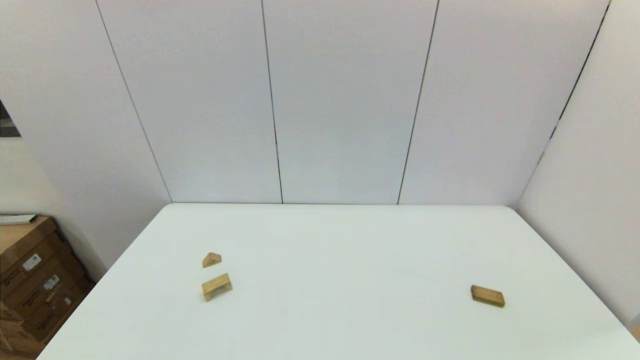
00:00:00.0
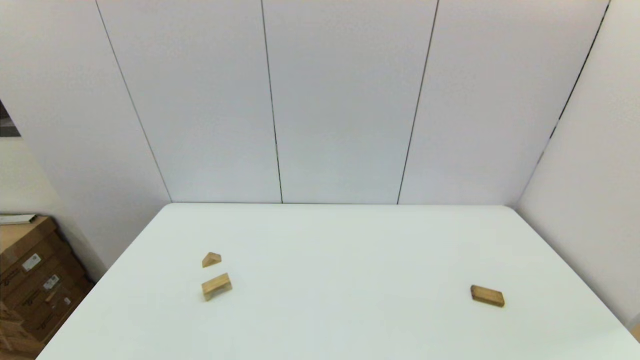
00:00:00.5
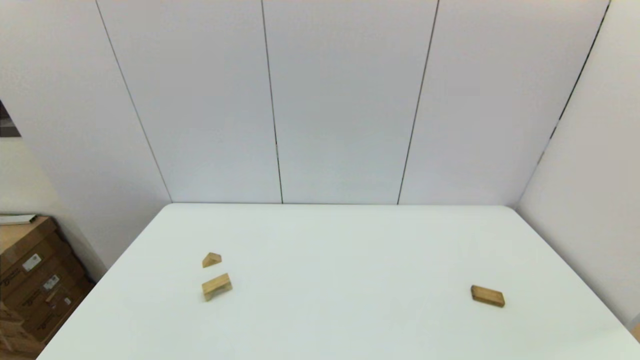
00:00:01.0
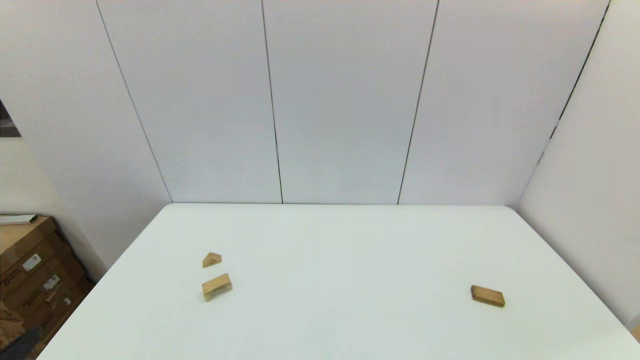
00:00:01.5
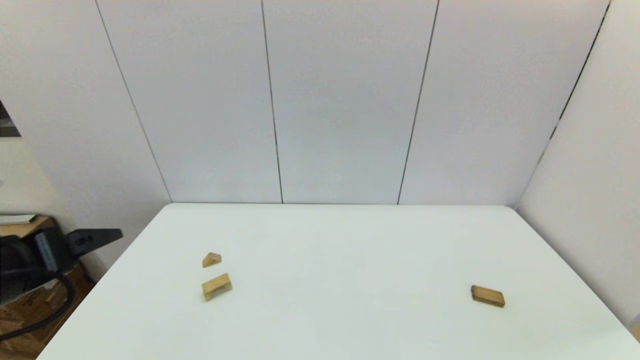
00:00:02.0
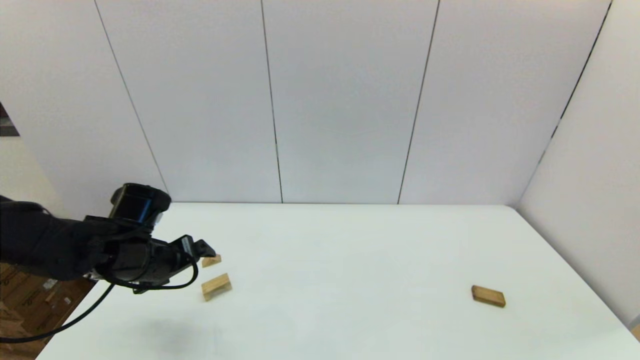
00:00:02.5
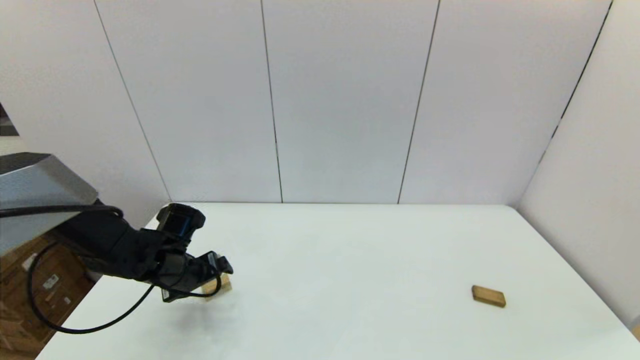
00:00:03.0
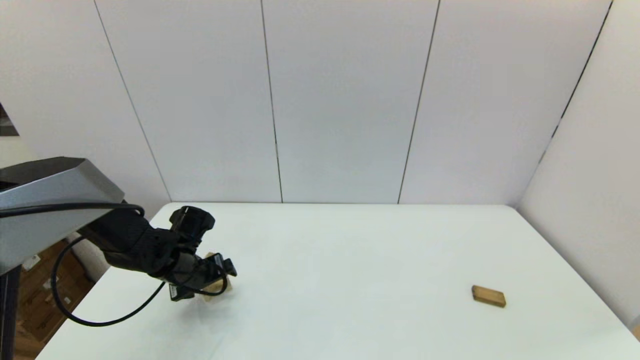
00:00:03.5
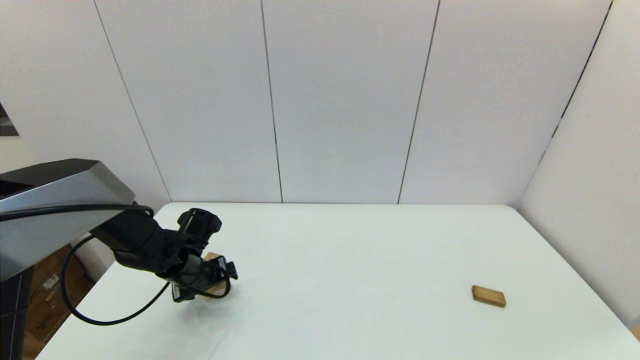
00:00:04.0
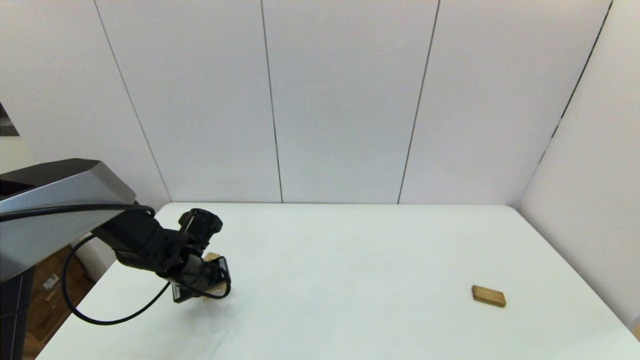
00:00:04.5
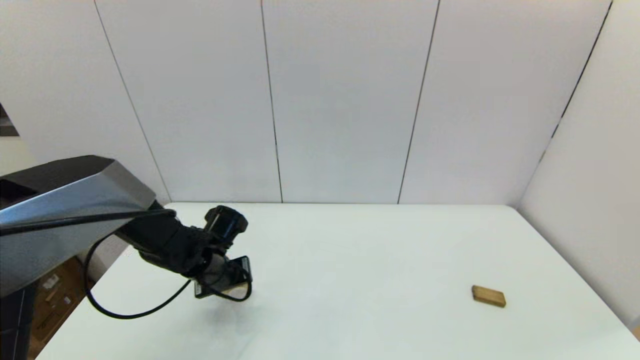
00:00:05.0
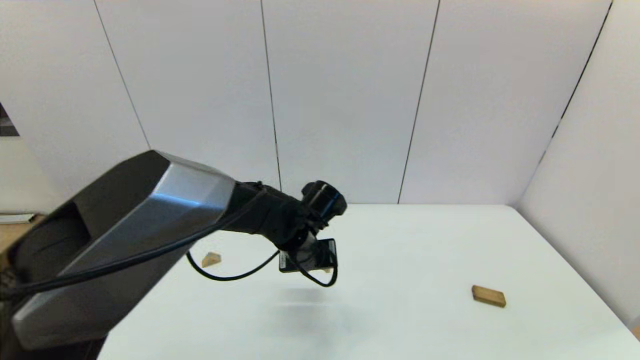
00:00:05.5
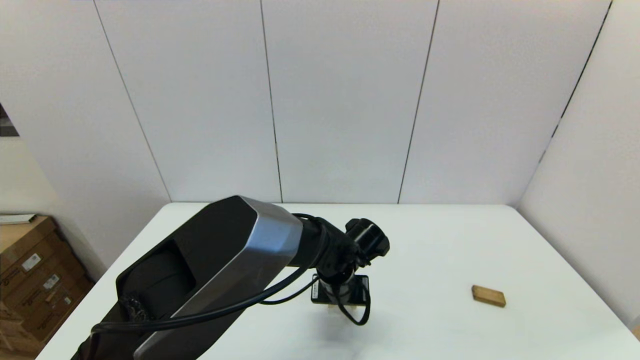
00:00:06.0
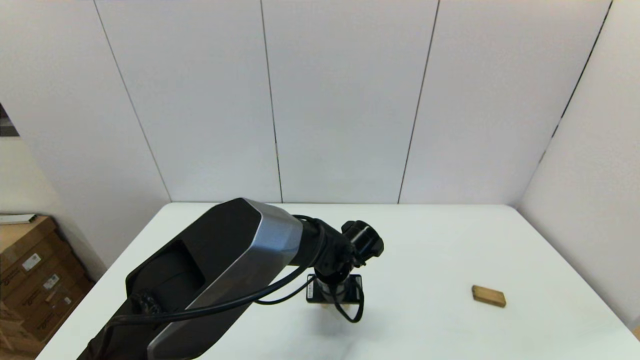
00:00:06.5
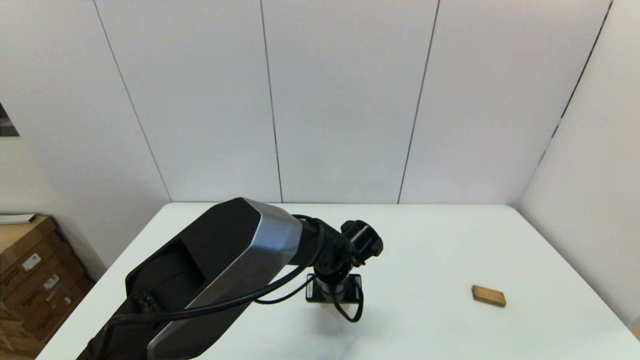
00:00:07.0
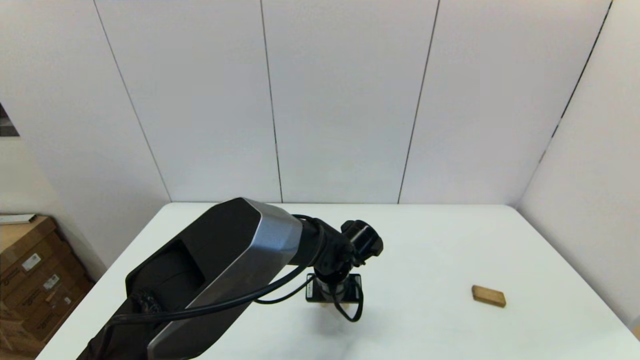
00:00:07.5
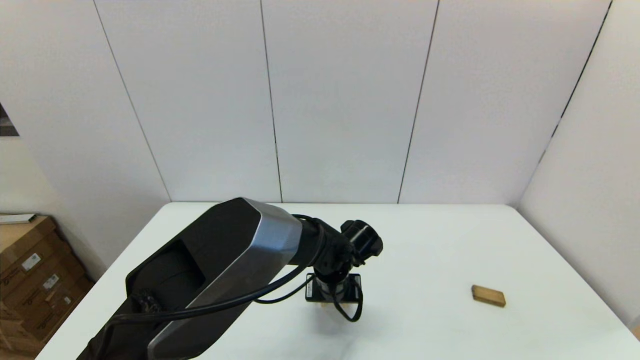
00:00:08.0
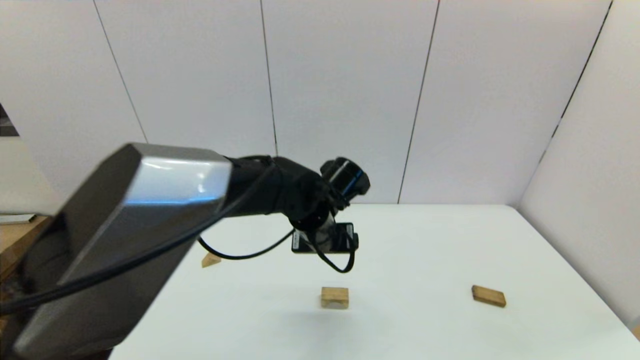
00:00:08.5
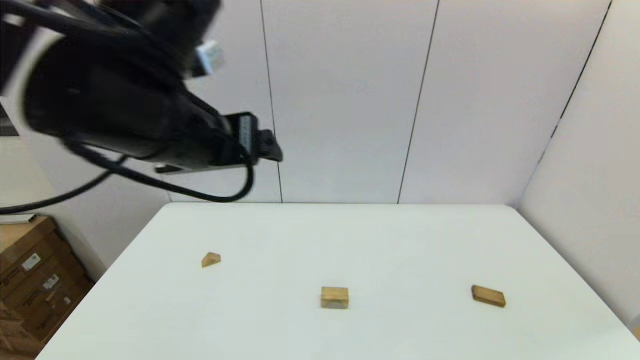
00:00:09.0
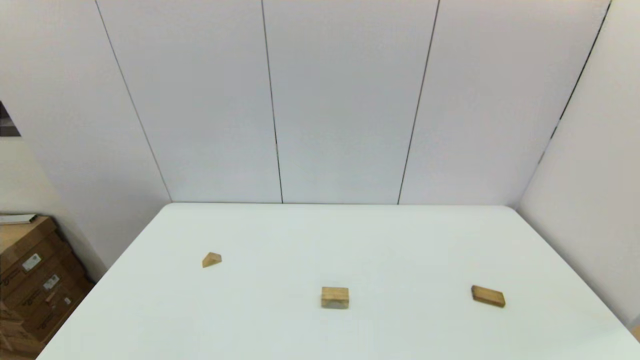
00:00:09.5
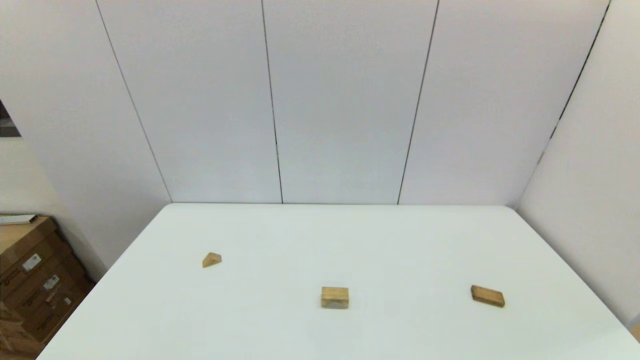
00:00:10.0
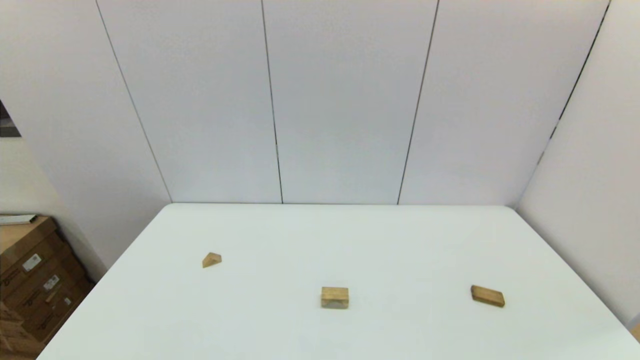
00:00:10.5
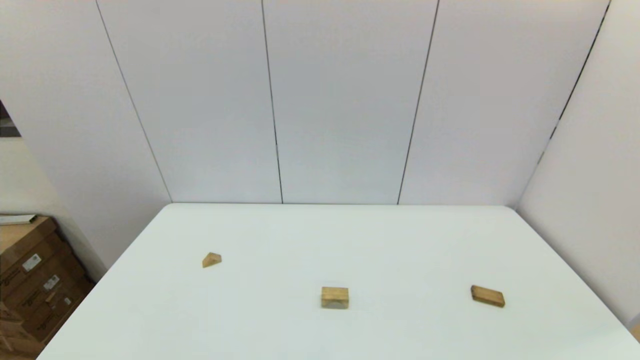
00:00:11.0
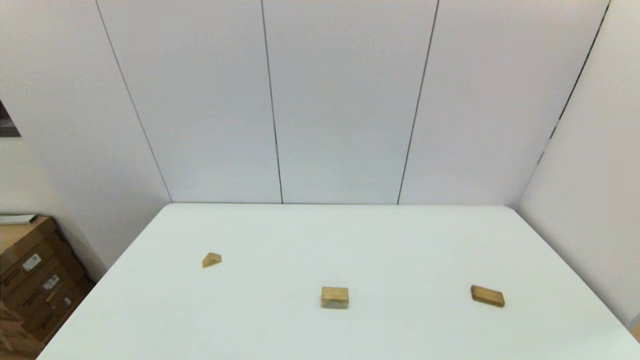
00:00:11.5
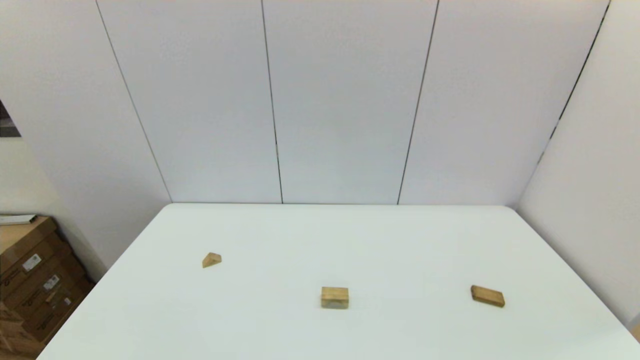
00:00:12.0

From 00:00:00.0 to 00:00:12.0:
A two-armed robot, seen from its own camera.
Task of the whole recording: place the arched building blocks in the center of the table, set up the rectangular building blocks, and then set up the triangular building blocks.
Step, from 00:00:01.5 to 00:00:04.0: Grasp the arch-shaped block with the left gripper.
Step, from 00:00:04.5 to 00:00:07.5: Place the arch-shaped block in the center of view with the left gripper.
From 00:00:00.0 to 00:00:02.0: The left gripper heads forward and upward, covering some 20 cm.
From 00:00:02.0 to 00:00:04.0: The left gripper goes some 25 cm downward and forward.
From 00:00:04.0 to 00:00:06.0: The left gripper is displaced to the right by roughly 25 cm, and closes up.
From 00:00:06.0 to 00:00:08.0: Both grippers stay put.
From 00:00:08.0 to 00:00:10.0: The left gripper is displaced backward, to the left and upward by about 60 cm.

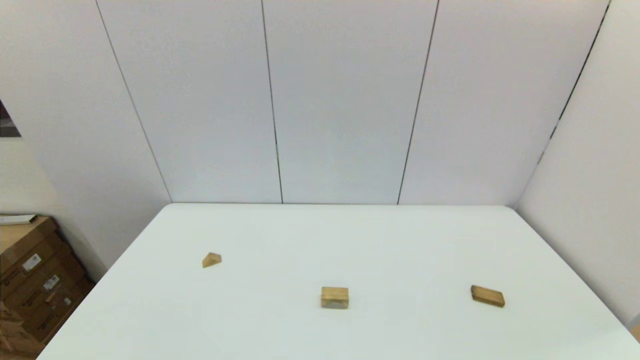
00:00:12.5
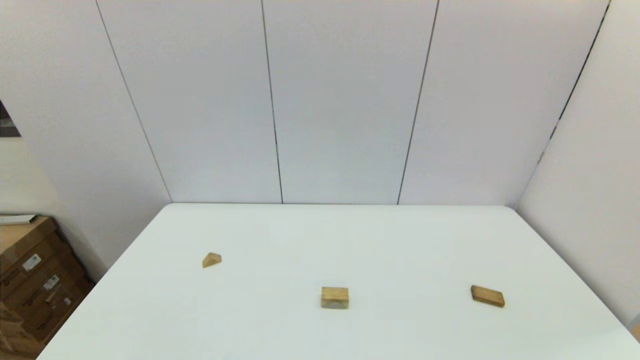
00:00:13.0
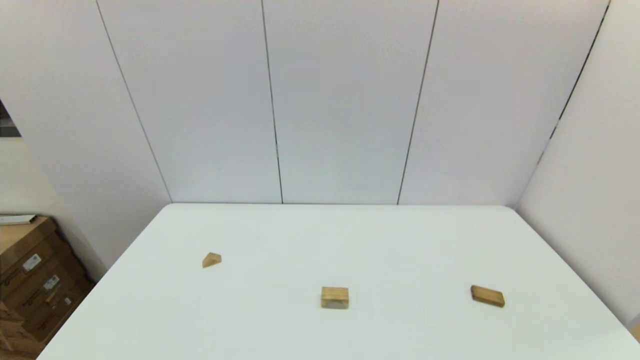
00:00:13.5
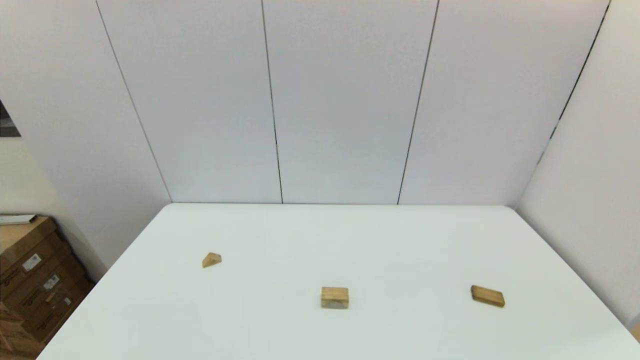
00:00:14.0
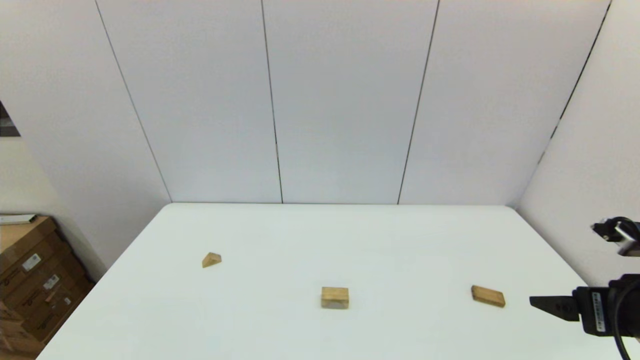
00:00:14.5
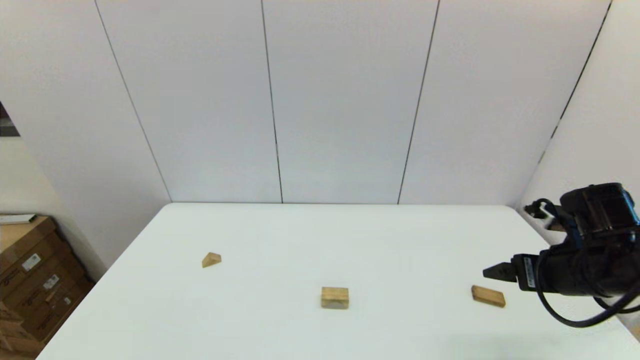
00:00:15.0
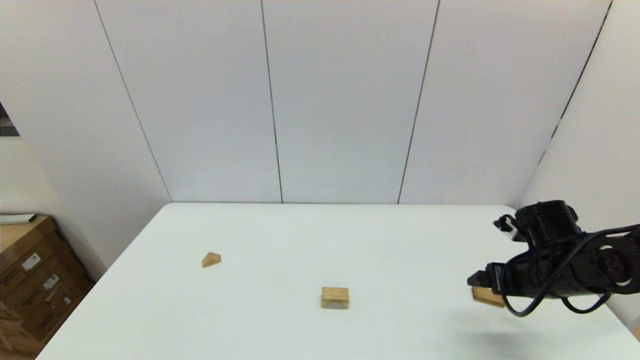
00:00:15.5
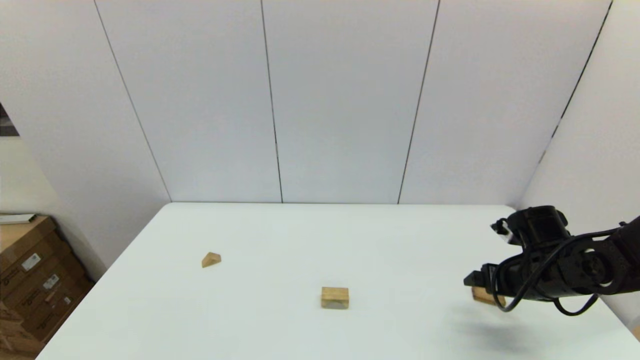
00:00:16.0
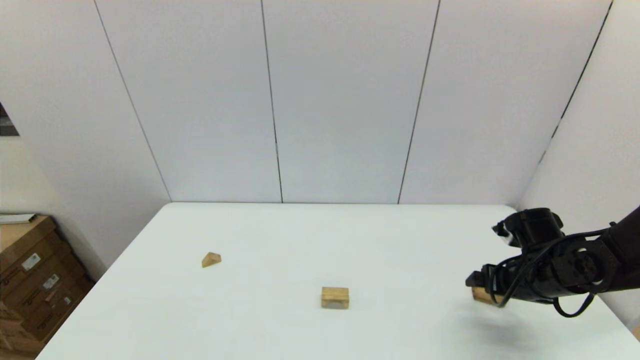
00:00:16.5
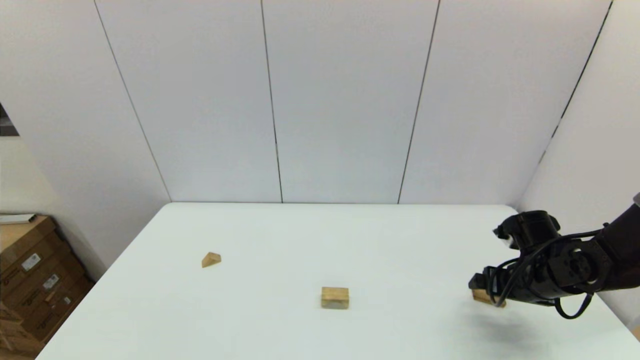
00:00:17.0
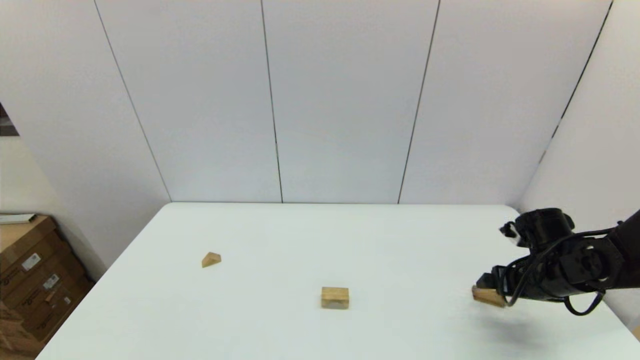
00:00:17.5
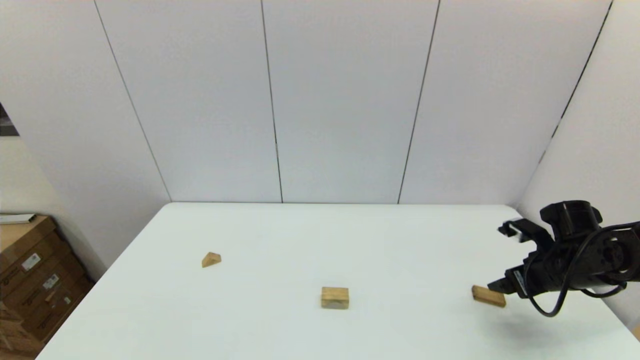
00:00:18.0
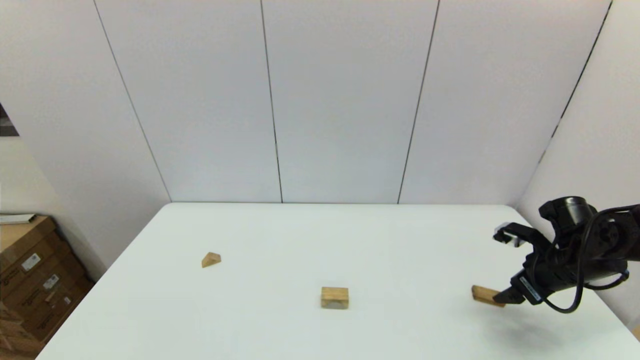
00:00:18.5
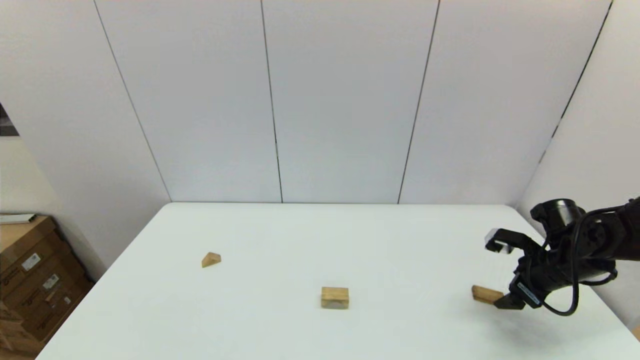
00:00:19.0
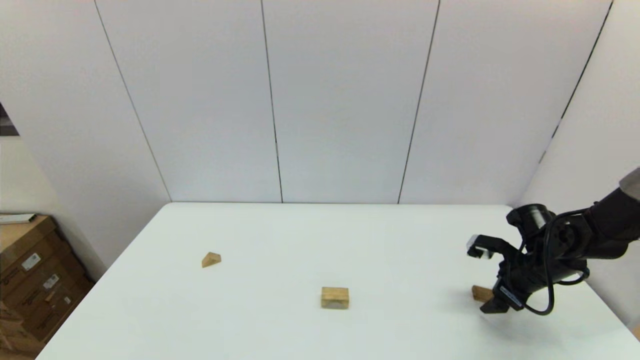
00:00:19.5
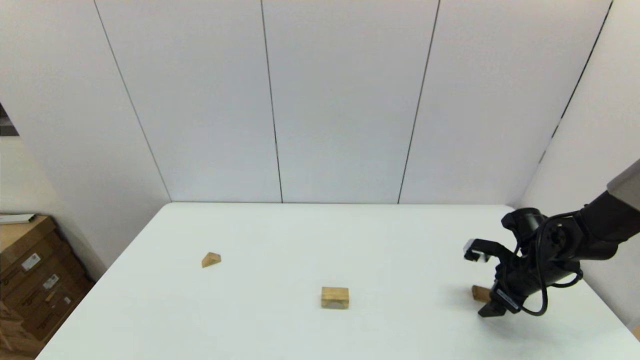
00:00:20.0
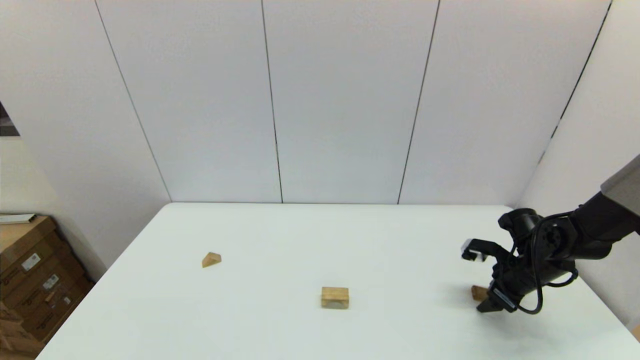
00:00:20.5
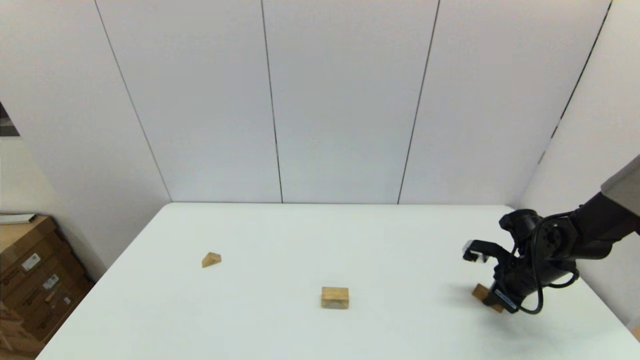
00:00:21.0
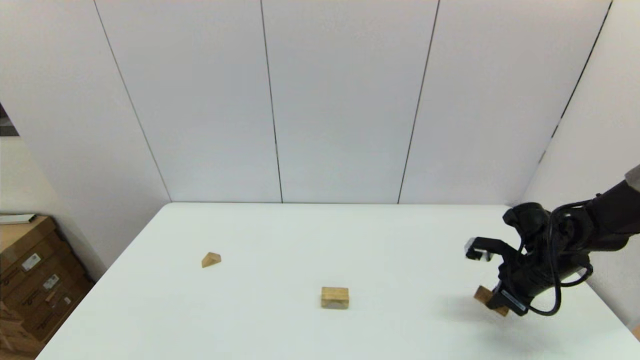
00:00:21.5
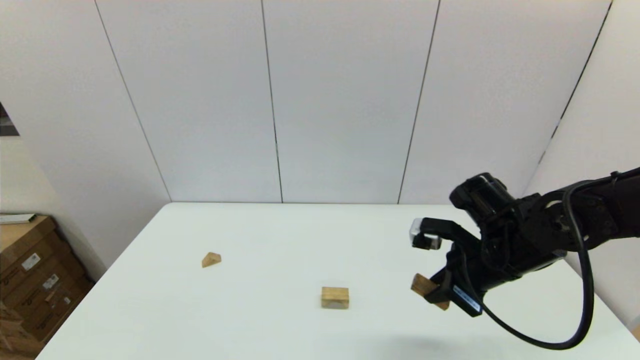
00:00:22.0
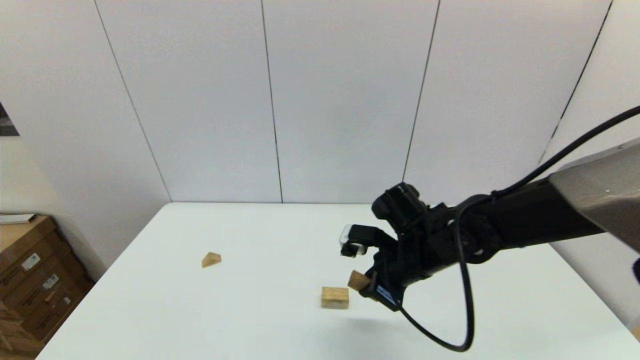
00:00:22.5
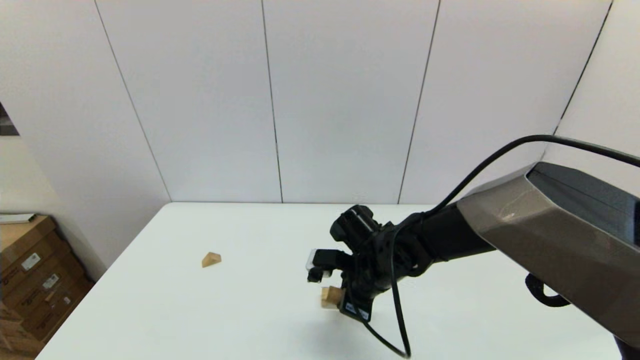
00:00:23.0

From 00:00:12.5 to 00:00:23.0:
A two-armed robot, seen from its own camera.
Task of the whole recording: place the arched building blocks in the center of the table, set up the rectangular building blocks, and then set up the triangular building blocks.
Step, from 00:00:12.5 to 00:00:20.5: Grasp the box-shaped block with the right gripper.
From 00:00:12.5 to 00:00:14.5: The right gripper travels forward by roughly 20 cm.
From 00:00:14.5 to 00:00:16.5: The right gripper is displaced forward and downward by about 15 cm.
From 00:00:16.5 to 00:00:19.0: The right gripper is displaced to the right by some 5 cm.
From 00:00:19.0 to 00:00:21.0: The right gripper closes its fingers.
From 00:00:21.0 to 00:00:23.0: The right gripper travels to the left by approximately 30 cm.
